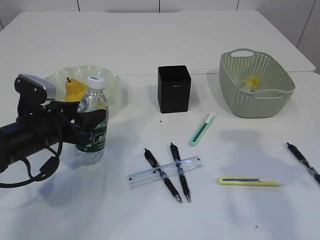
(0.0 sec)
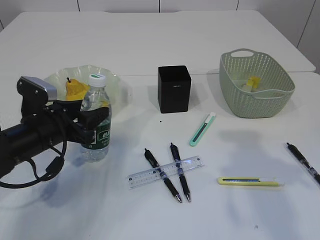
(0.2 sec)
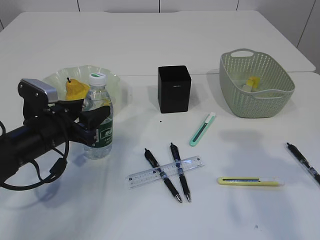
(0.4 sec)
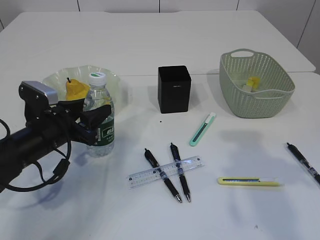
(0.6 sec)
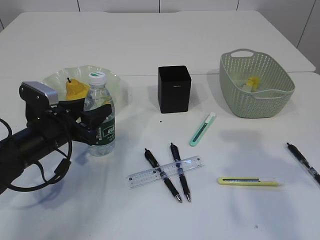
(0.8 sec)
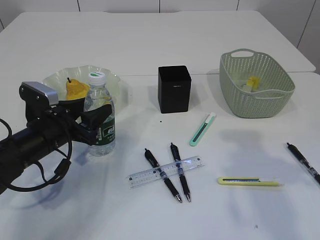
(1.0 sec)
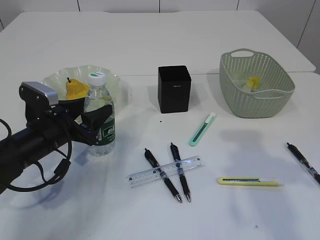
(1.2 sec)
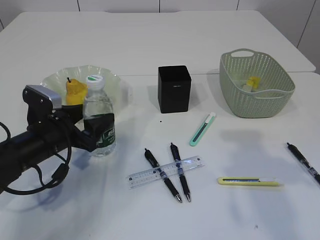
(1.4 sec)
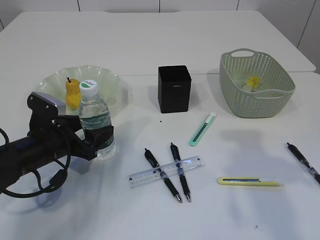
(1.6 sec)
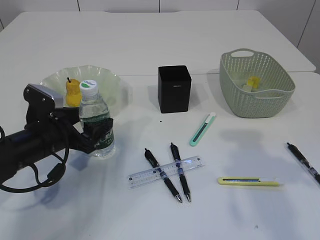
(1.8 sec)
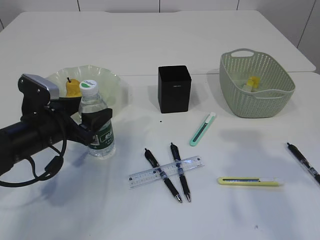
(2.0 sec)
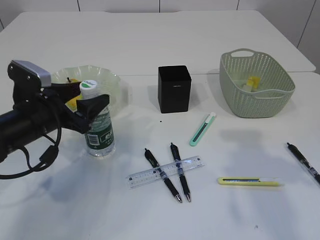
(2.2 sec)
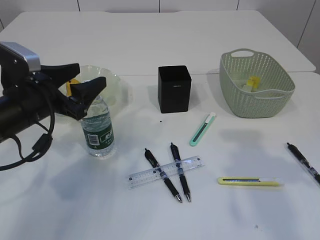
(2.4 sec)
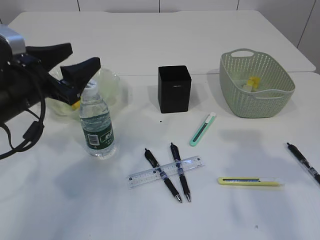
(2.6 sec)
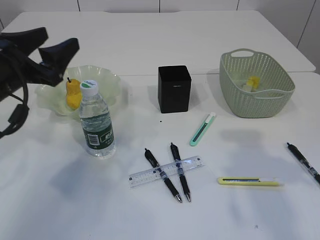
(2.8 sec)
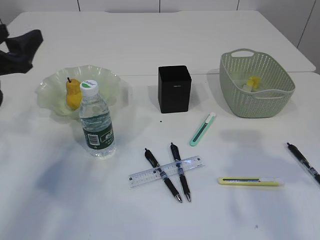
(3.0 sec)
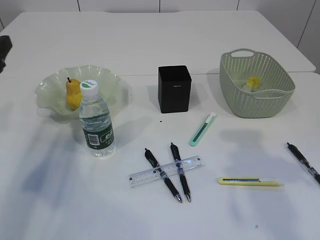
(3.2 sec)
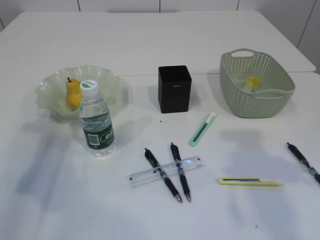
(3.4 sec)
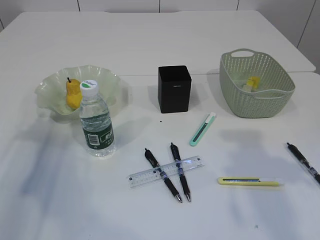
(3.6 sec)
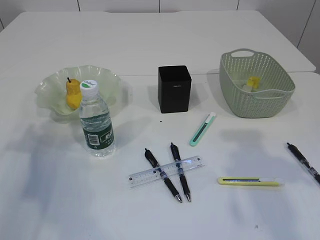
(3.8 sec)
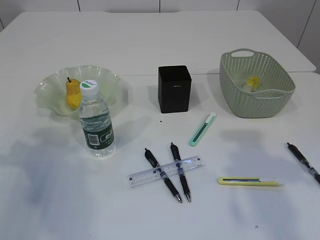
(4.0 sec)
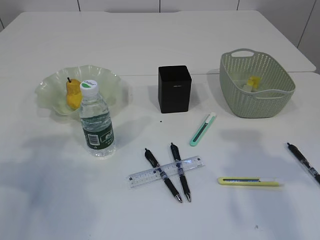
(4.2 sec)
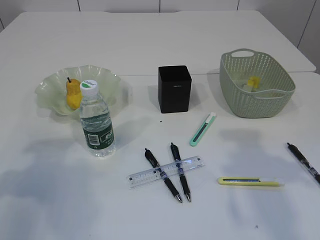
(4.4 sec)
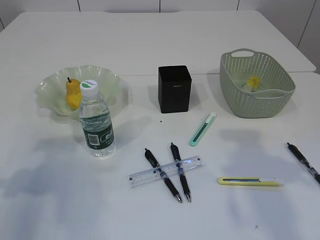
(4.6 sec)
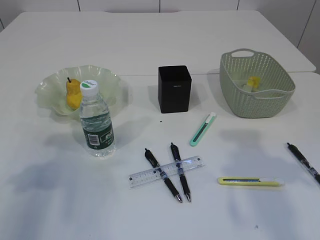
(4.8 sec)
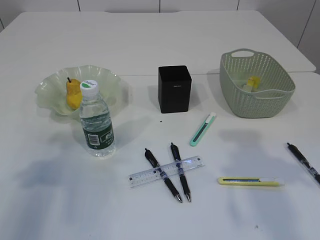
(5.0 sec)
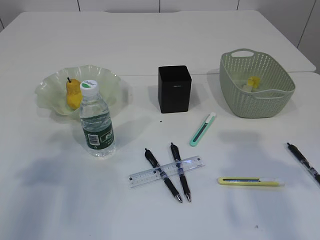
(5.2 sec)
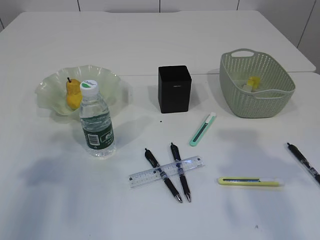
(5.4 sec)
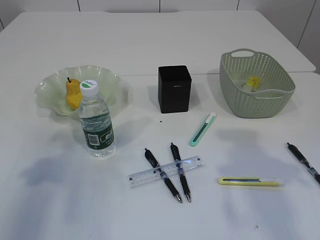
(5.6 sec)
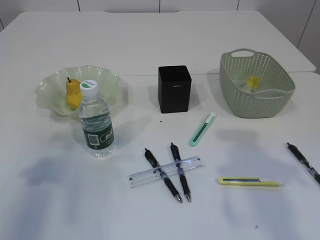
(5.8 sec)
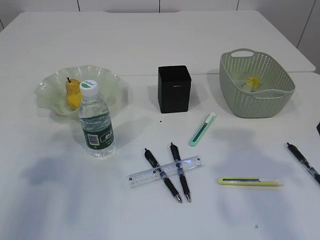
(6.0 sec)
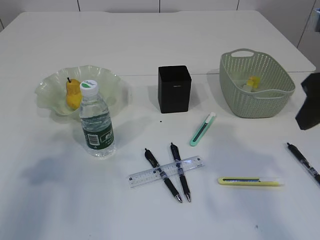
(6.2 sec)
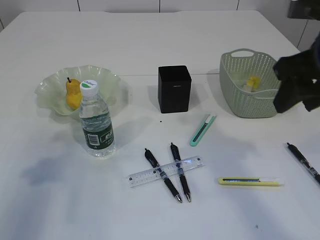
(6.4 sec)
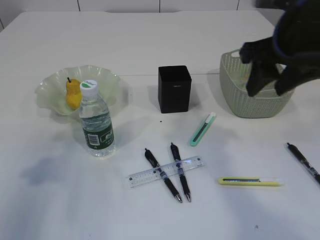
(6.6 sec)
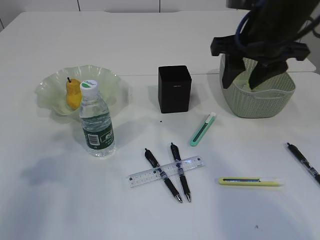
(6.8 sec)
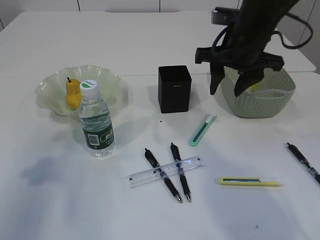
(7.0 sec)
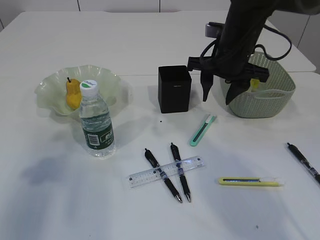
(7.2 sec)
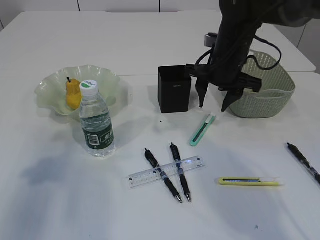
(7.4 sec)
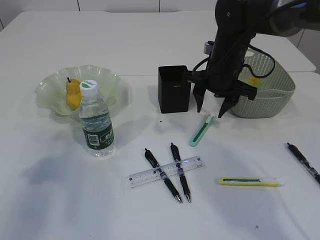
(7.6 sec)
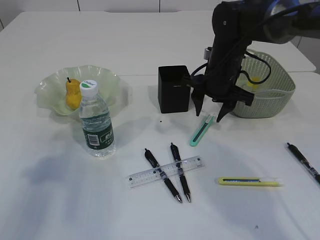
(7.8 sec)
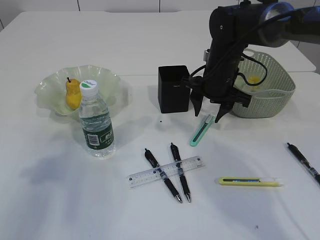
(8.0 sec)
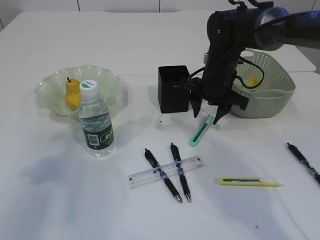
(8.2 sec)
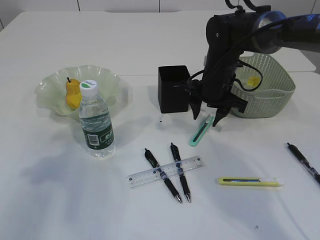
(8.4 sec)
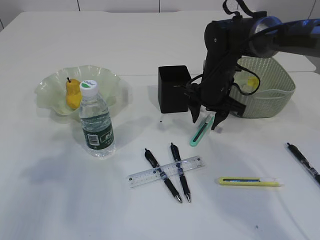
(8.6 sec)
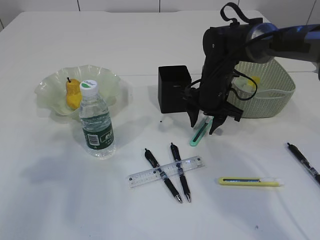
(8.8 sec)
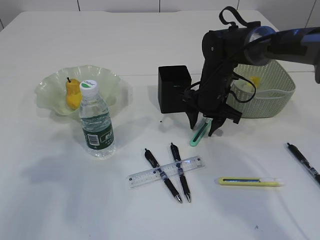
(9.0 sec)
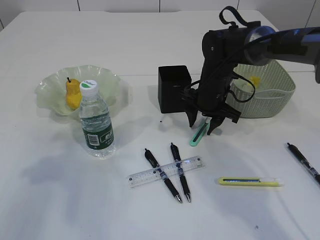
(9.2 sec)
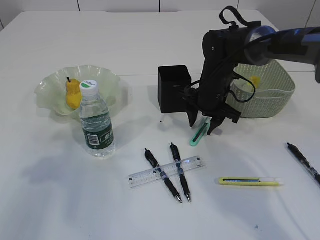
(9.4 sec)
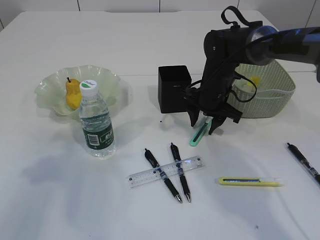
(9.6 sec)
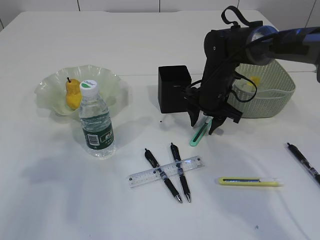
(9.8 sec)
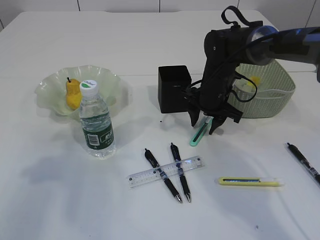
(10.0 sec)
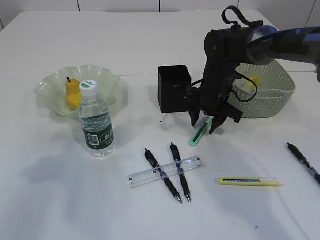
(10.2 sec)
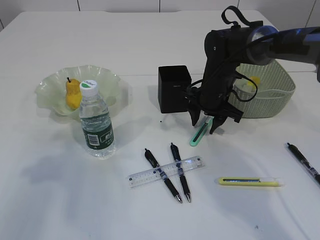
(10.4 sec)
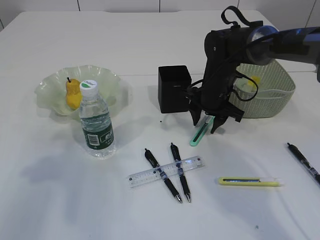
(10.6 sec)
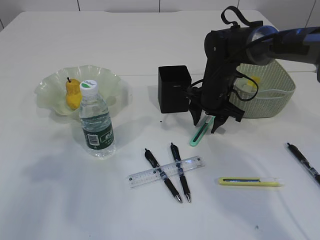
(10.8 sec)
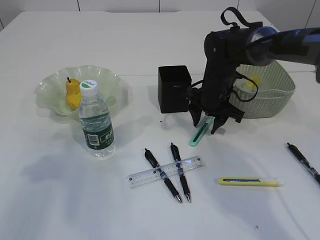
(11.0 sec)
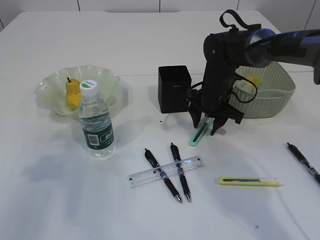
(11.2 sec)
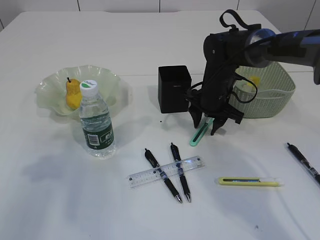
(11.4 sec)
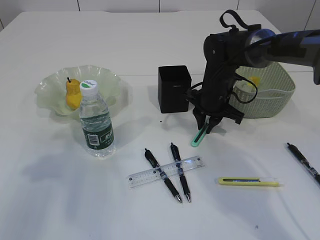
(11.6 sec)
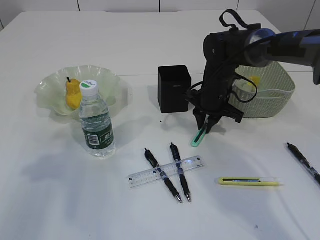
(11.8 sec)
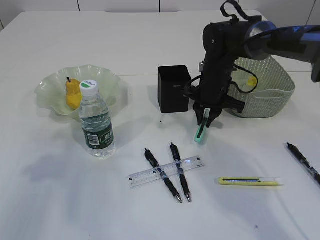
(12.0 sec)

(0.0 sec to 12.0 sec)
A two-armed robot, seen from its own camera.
Step, 0.0 sec - 2.6 sec: Place the bottle.
0.0 sec - 1.6 sec: The left gripper opens.
1.6 sec - 3.0 sec: The left gripper is displaced upward and to the left by approximately 15 cm.
3.0 sec - 4.4 sec: The left gripper moves backward and to the left, roughly 10 cm.
6.0 sec - 7.6 sec: The right gripper shifts roughly 25 cm forward, to the left and downward.
7.6 sec - 9.0 sec: The right gripper moves downward, approximately 5 cm.
9.0 sec - 10.4 sec: Neither gripper changes place.
10.4 sec - 12.0 sec: The right gripper closes up.

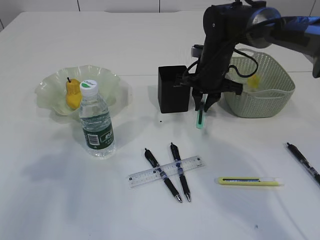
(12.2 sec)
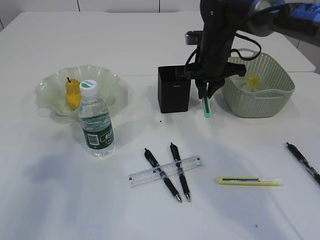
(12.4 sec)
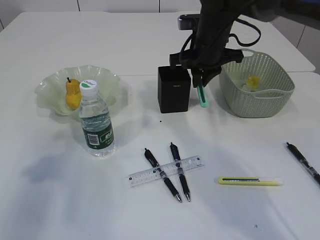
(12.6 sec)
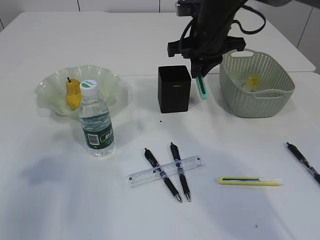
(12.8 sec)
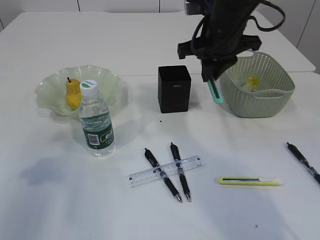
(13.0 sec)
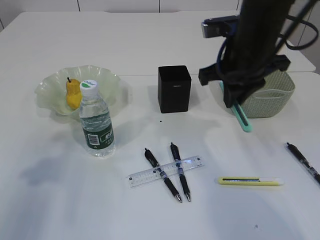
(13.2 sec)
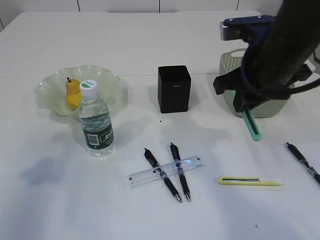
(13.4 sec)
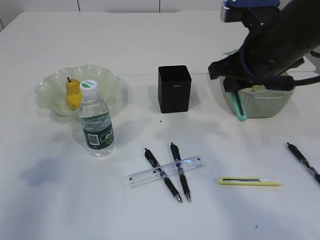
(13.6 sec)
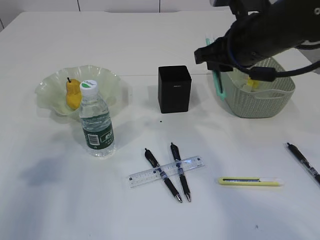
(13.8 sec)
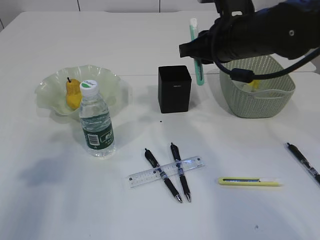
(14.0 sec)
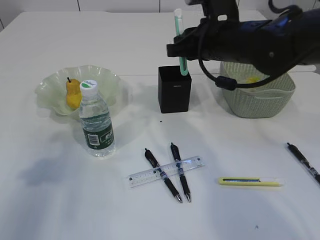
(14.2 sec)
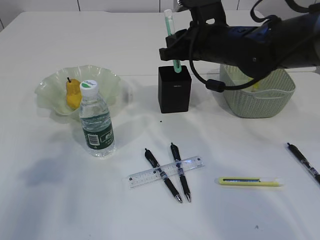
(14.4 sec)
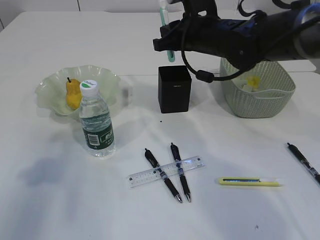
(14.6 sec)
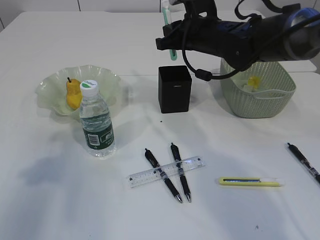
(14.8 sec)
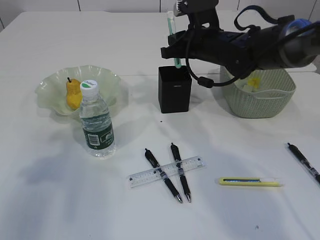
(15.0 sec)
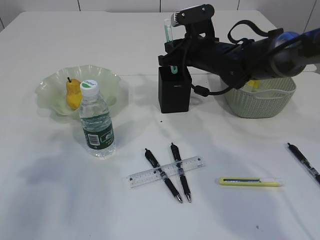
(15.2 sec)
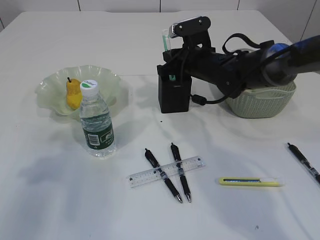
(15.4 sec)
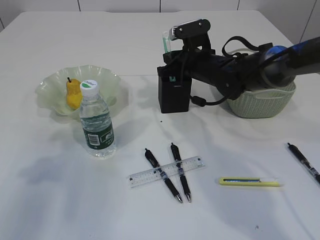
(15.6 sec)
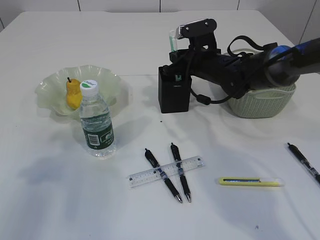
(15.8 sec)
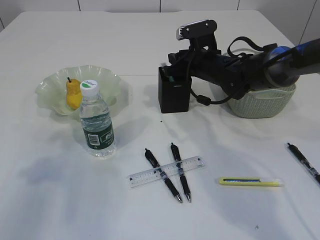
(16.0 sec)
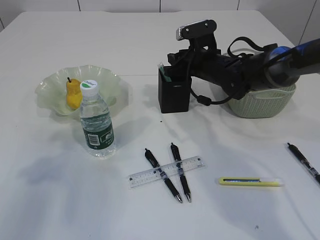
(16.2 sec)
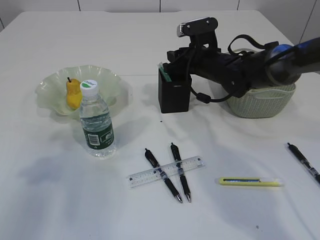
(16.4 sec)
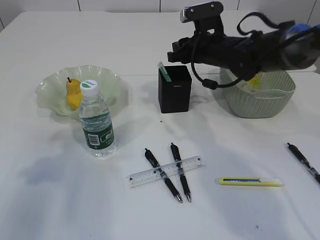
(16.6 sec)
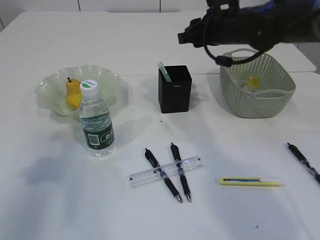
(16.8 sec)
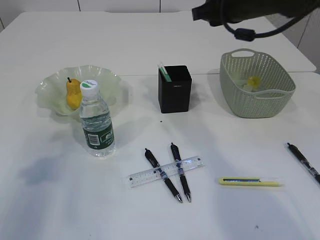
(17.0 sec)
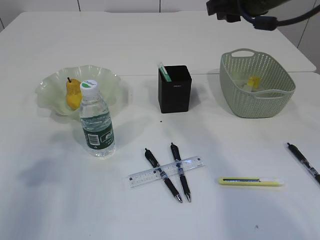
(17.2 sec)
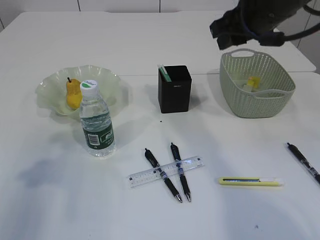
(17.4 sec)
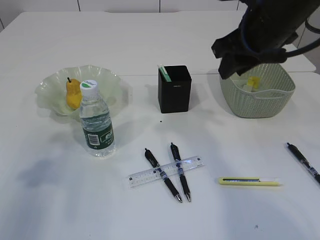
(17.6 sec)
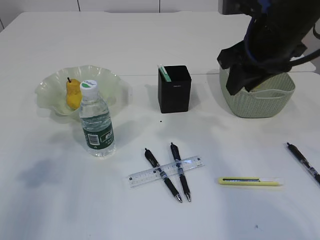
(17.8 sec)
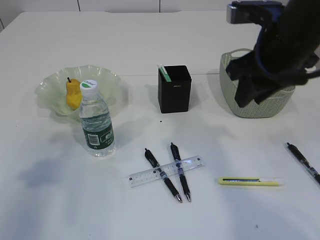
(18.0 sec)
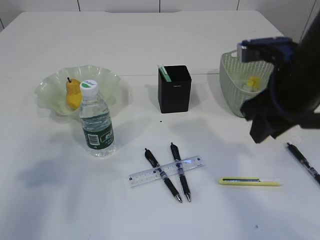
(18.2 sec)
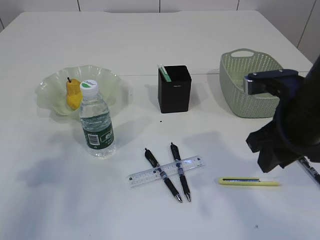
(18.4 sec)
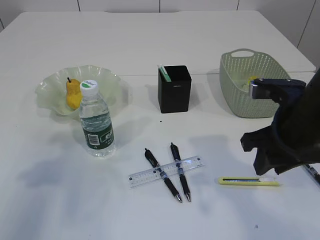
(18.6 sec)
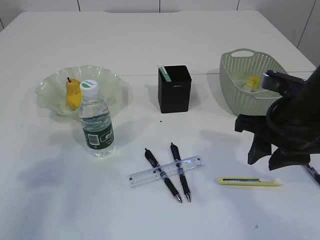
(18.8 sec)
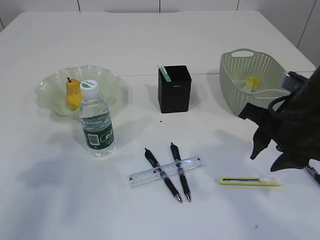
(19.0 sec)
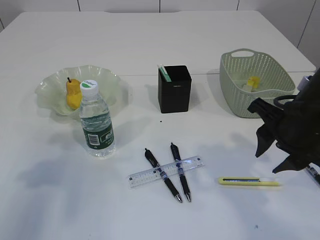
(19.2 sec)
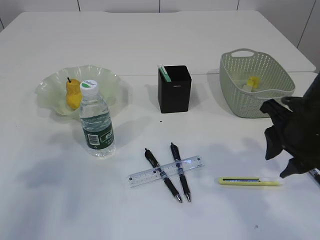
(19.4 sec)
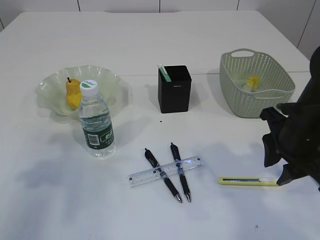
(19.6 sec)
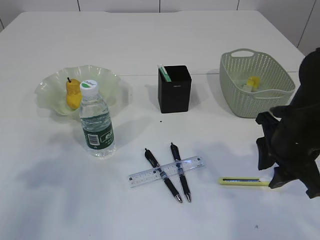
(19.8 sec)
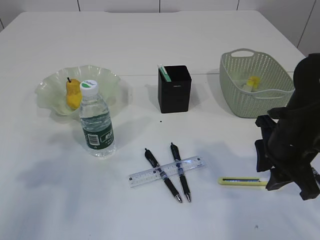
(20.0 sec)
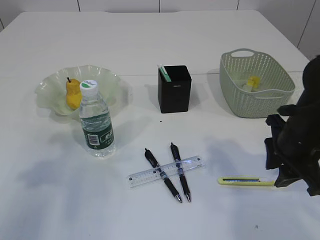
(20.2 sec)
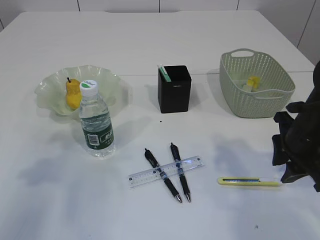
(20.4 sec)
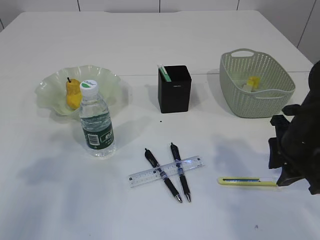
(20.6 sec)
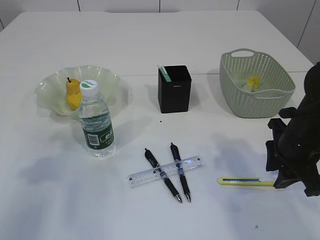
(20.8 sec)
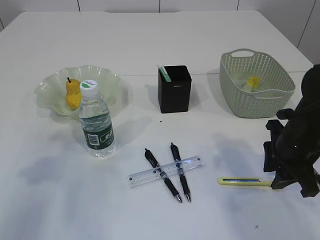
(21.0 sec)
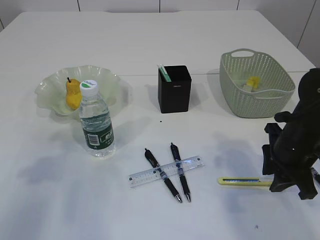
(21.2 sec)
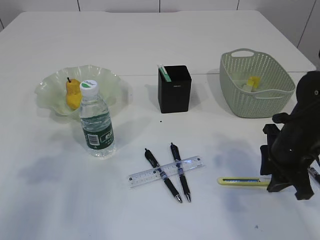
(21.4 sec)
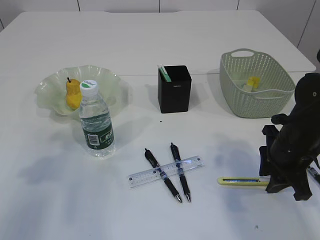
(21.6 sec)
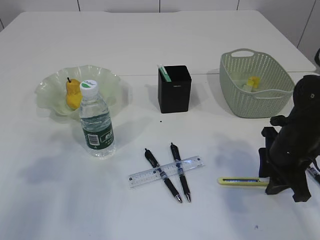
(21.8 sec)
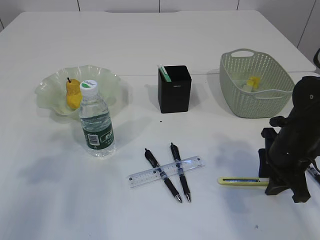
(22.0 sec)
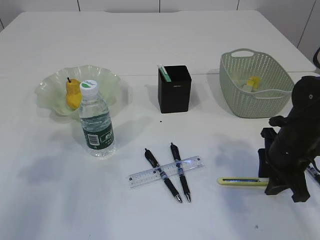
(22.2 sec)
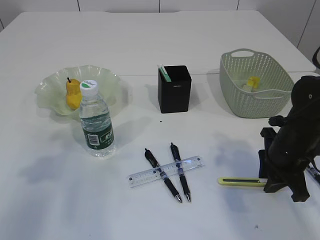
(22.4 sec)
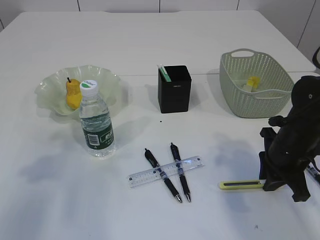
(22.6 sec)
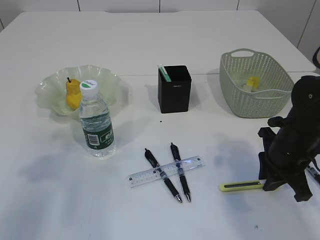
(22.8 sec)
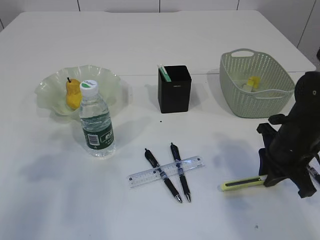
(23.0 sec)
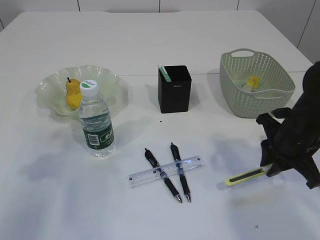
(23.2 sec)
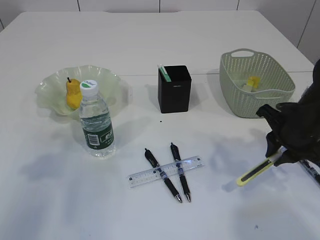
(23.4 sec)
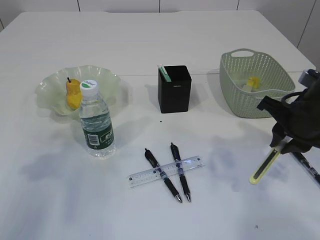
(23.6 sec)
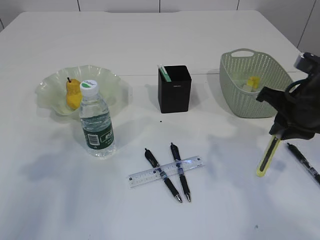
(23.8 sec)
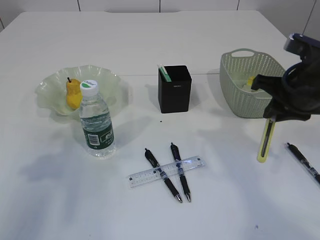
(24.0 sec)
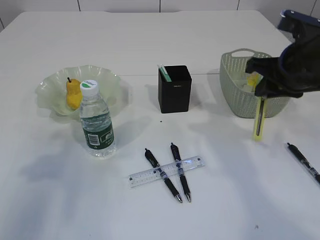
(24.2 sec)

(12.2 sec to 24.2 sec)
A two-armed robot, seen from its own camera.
Step, 12.2 sec - 16.6 sec: Place the blue knife into the pen holder.
Step, 16.8 sec - 23.2 sec: pick up the yellow knife.
12.2 sec - 13.8 sec: The right gripper travels backward and upward by roughly 15 cm.
13.8 sec - 15.2 sec: The right gripper goes approximately 15 cm forward and downward.
15.2 sec - 16.6 sec: The grippers stay close to where they were, moving slightly.
16.6 sec - 18.2 sec: The right gripper travels backward and upward by some 20 cm.
18.2 sec - 19.8 sec: The right gripper travels downward by some 10 cm.
19.8 sec - 21.2 sec: The right gripper moves roughly 5 cm.
21.2 sec - 22.6 sec: The grippers move only a little.
22.6 sec - 24.2 sec: The right gripper shifts some 15 cm upward.
